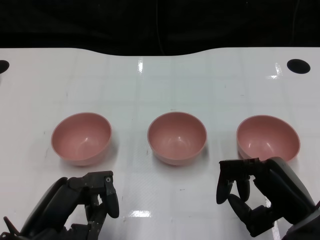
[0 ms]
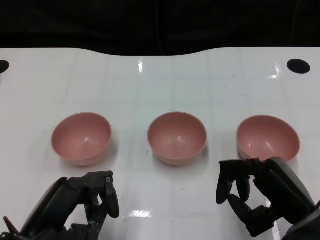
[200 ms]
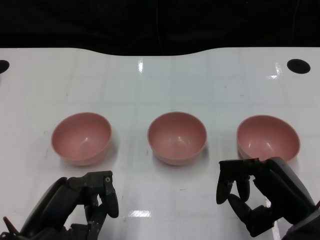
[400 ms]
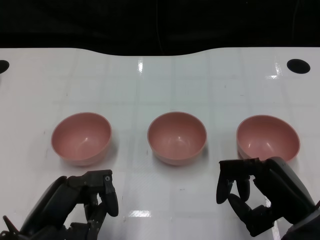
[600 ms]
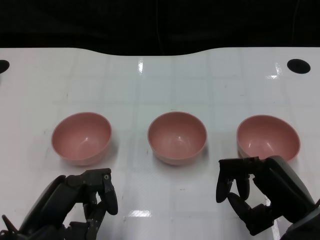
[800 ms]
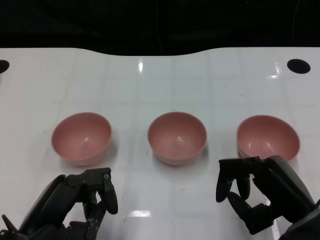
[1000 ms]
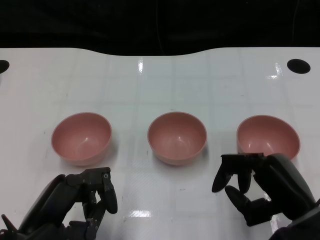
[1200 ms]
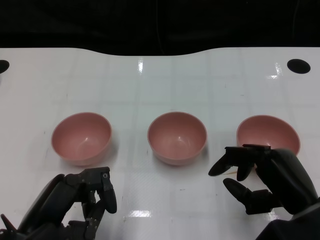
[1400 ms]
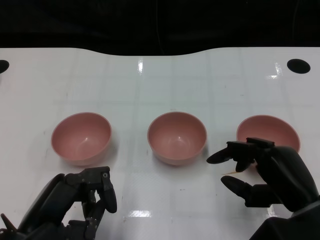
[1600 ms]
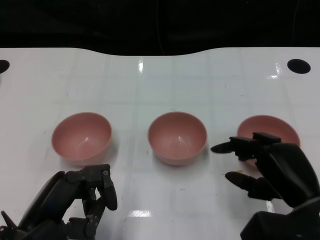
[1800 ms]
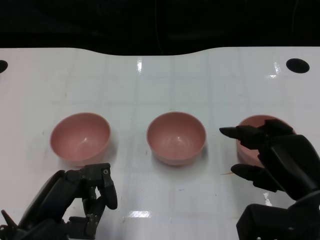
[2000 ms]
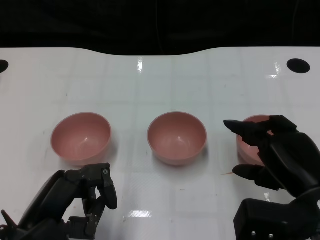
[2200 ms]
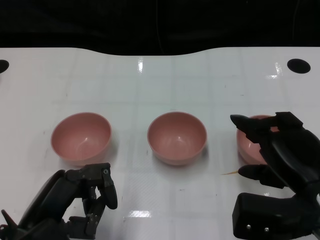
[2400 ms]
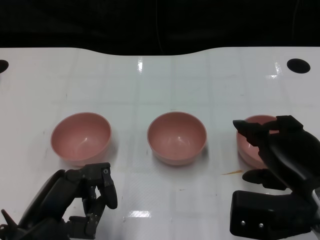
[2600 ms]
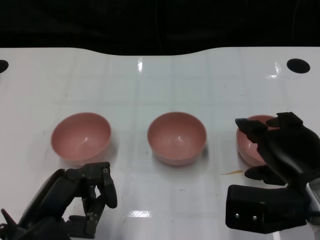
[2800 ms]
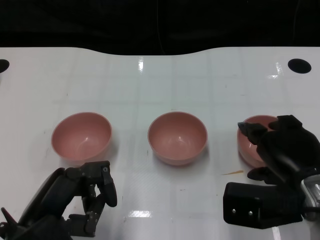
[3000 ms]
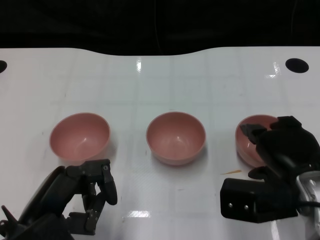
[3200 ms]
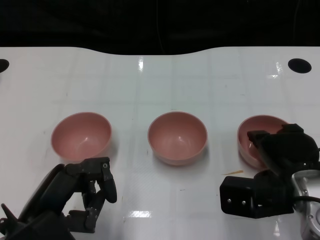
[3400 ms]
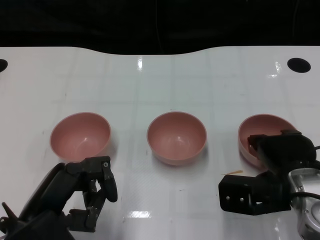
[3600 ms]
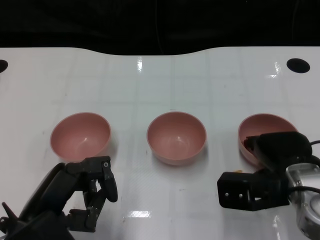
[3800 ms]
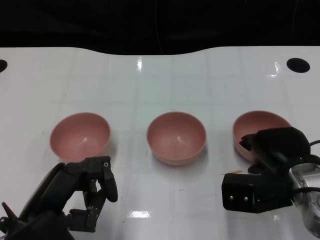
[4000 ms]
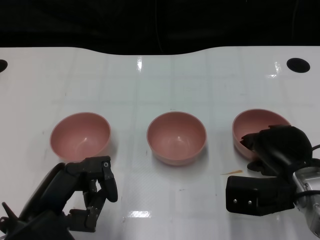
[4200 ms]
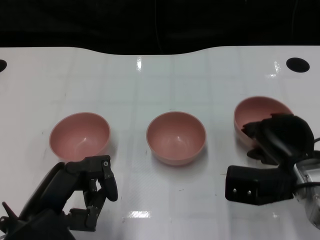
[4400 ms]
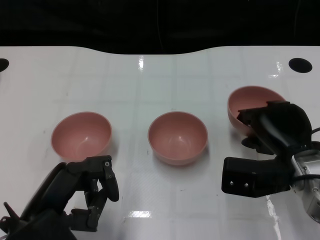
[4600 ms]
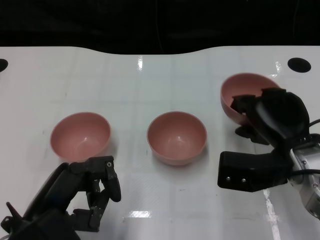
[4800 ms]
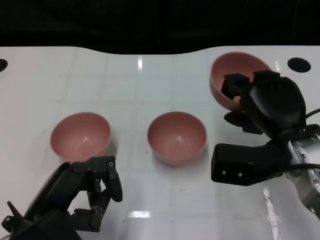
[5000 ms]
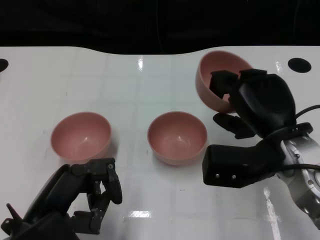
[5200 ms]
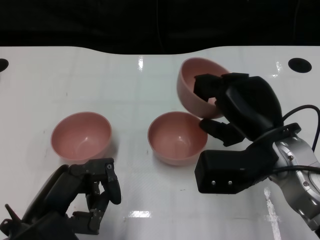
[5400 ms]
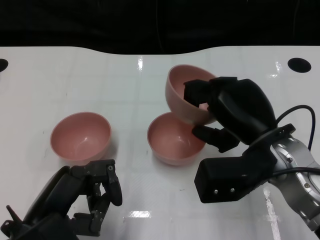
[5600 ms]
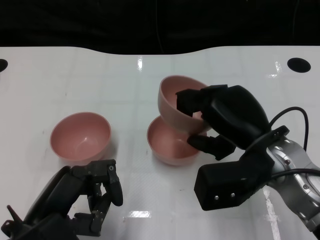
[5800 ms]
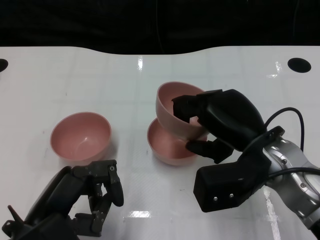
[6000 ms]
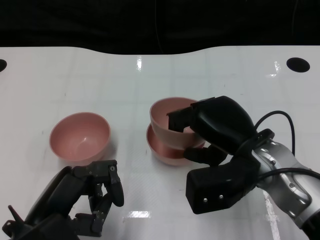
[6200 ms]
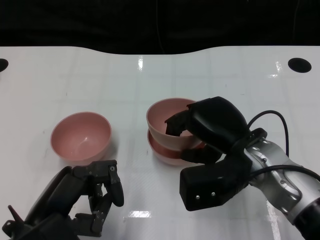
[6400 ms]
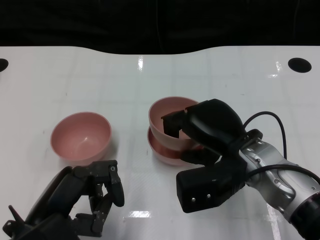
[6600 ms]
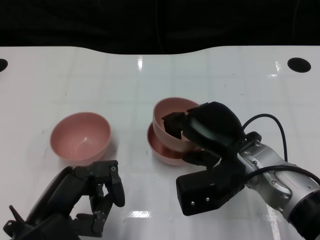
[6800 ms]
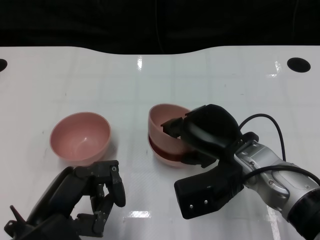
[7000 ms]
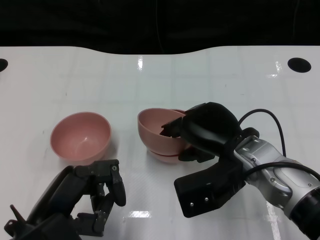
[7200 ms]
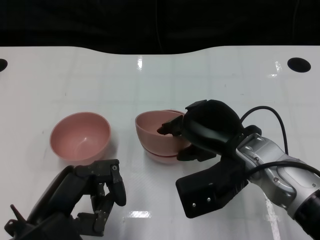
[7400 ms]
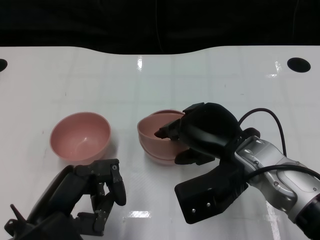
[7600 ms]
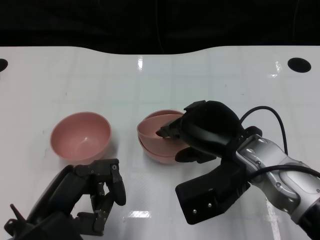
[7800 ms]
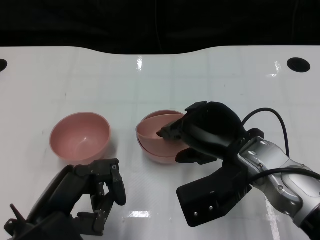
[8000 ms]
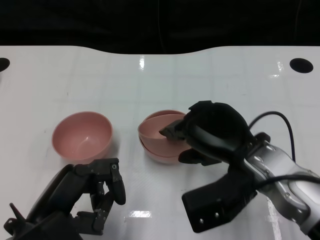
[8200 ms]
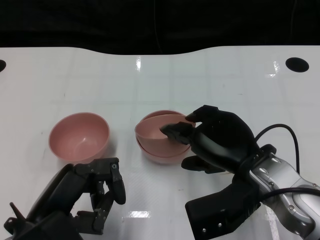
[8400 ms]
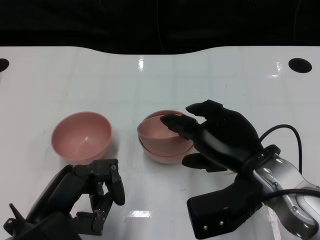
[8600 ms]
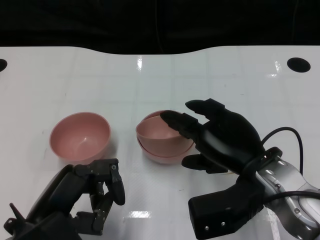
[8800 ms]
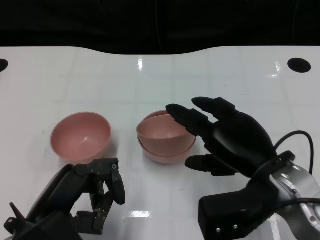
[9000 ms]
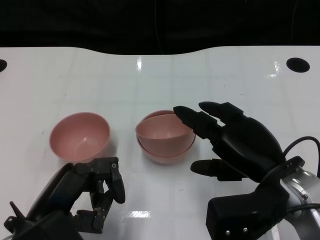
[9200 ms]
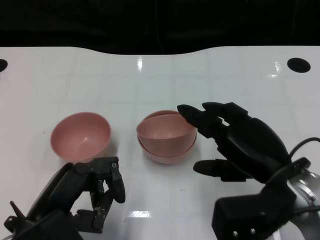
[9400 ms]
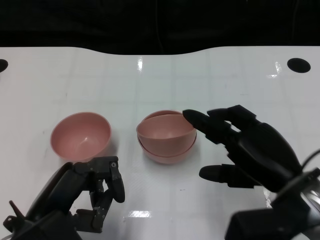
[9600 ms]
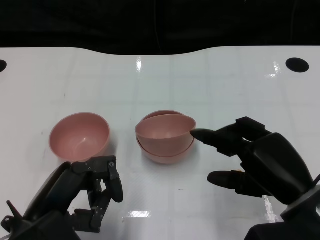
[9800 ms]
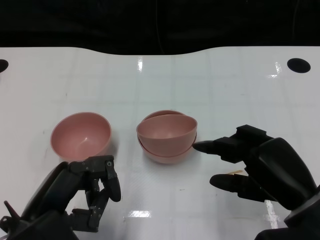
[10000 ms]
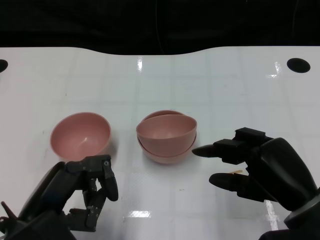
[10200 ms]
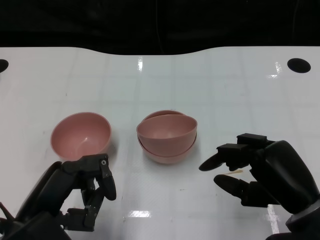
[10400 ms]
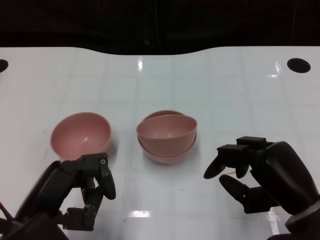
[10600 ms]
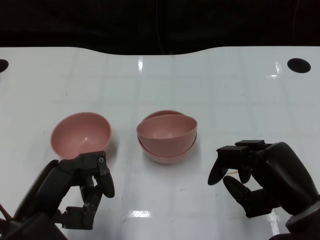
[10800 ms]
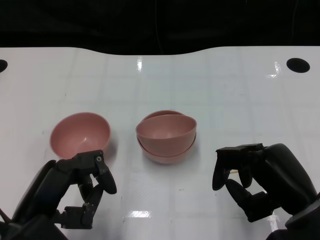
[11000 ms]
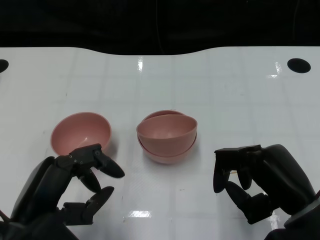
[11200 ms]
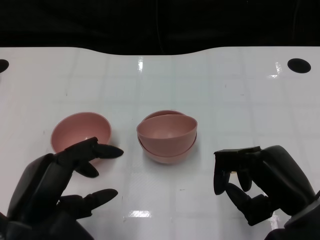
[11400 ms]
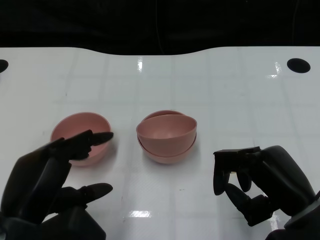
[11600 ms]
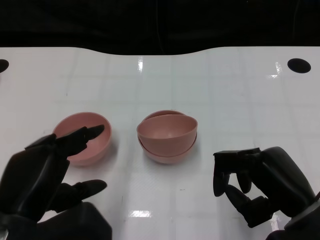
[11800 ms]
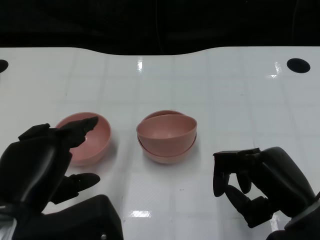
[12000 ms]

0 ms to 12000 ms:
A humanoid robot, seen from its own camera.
Task of the whole recording: Pick up the bowl on one side of the table and place it on top of the middle bowl, then pick up the bowl on the other side of the table and place it on top of the middle bowls.
Step, 1200 ms to 4200 ms: Grasp the bowl on the right with the right gripper.
Step, 4400 ms to 8800 ms: Place the bowl on the right onto the bowl in the middle with right gripper.
3000 ms to 4400 ms: The right hand shifts by approximately 5 cm.
4400 ms to 6000 ms: The right hand goes some 10 cm upward and to the left.
7600 ms to 9000 ms: The right hand changes place by approximately 5 cm.
9000 ms to 10400 ms: The right hand ends up some 5 cm from where it was.
10400 ms to 12000 ms: The left hand heads upward, covering about 5 cm.

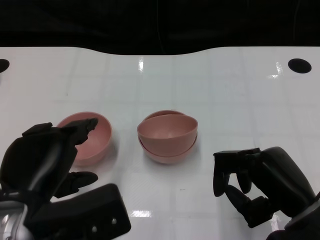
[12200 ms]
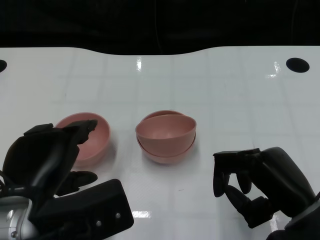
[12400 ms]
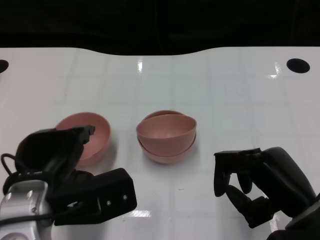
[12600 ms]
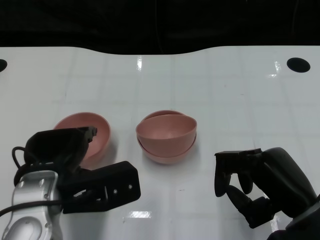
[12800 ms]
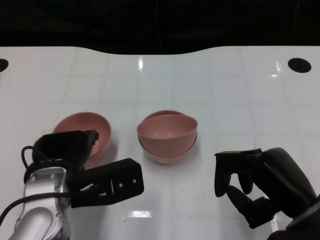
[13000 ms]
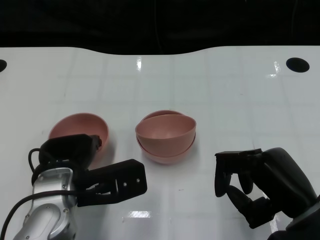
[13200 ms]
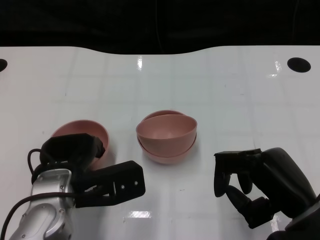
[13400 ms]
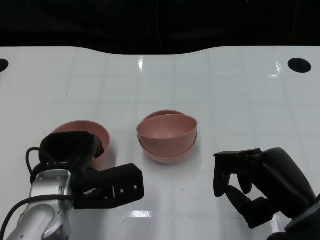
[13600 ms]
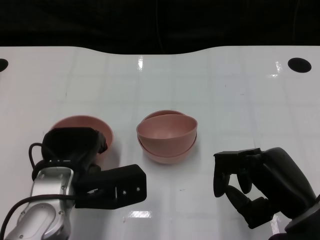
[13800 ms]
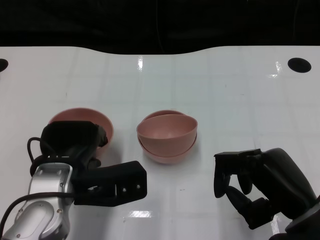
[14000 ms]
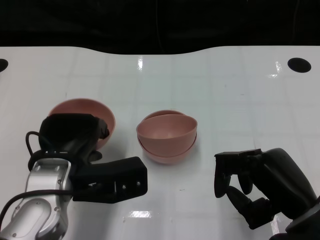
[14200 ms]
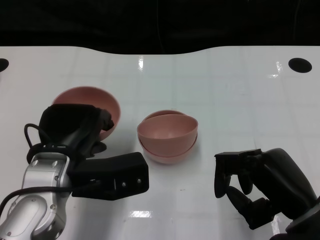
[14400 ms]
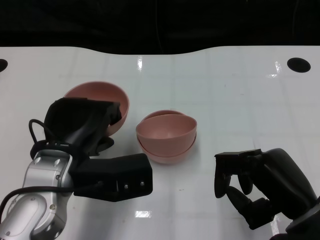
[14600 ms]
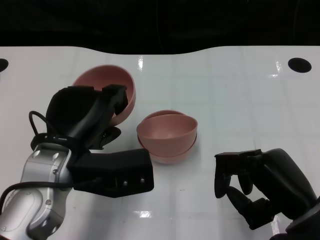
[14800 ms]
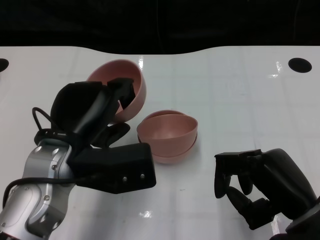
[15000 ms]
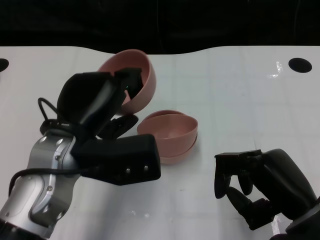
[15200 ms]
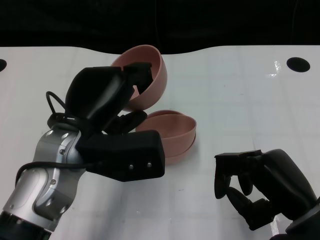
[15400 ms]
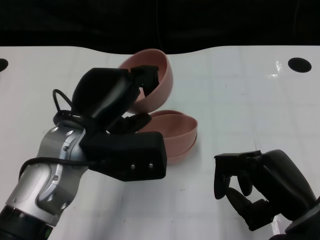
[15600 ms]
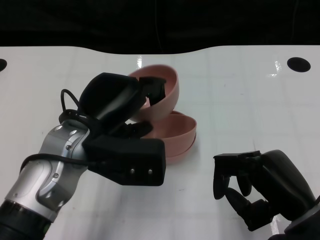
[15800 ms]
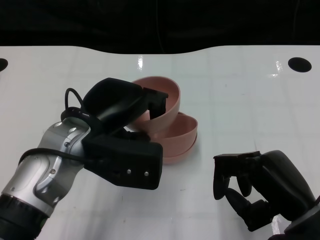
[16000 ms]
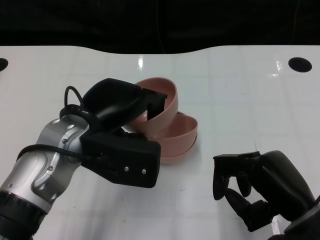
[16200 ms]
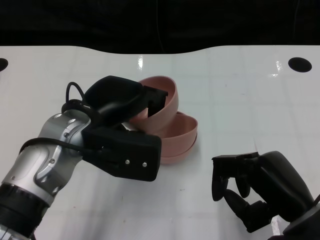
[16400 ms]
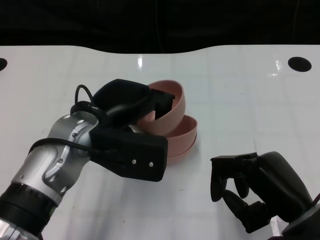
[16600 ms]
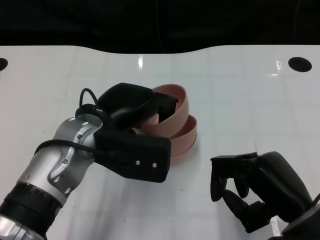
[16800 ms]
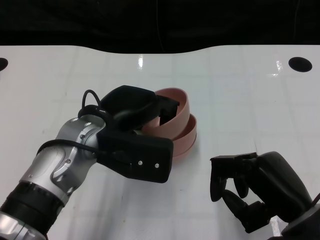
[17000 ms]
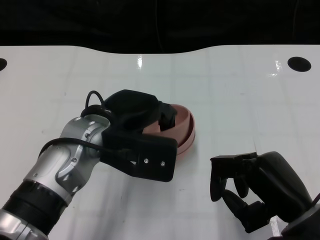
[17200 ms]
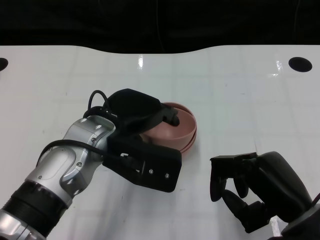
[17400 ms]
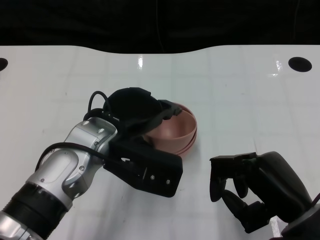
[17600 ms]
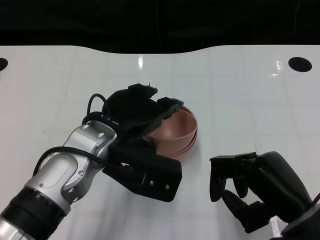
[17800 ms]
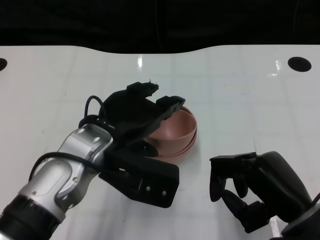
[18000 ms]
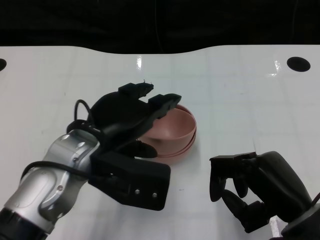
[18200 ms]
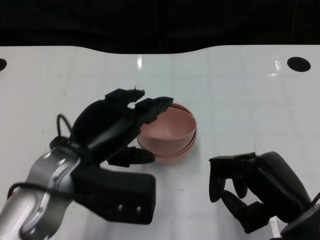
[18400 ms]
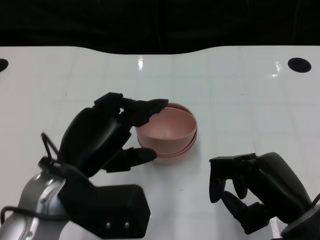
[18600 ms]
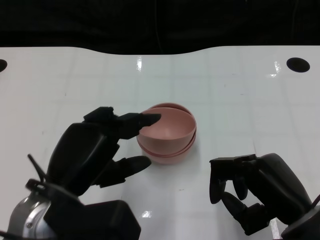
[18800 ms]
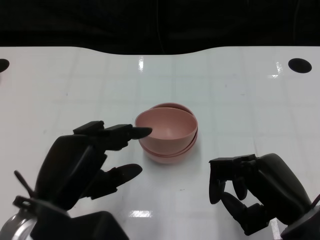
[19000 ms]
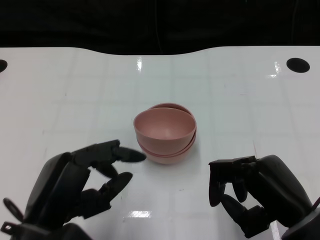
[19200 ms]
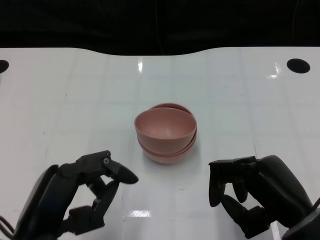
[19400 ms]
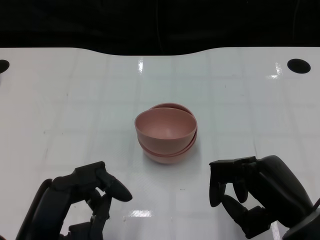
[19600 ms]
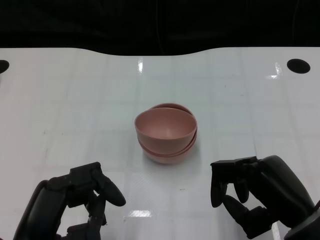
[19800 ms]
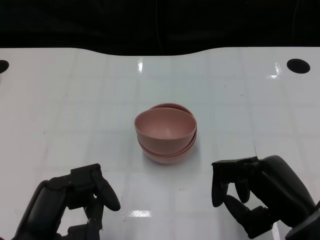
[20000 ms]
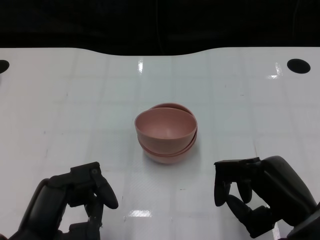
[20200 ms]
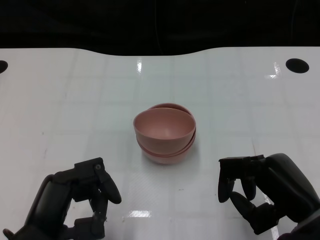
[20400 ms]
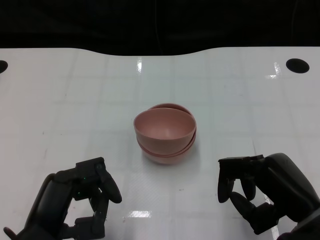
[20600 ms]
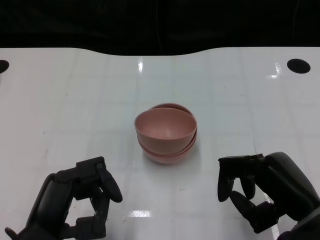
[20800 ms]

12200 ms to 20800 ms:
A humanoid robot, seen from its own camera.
Task of the whole recording: Pick up the bowl on one side of the table and place it on top of the middle bowl, then pick up the bowl on the other side of the table and place it on top of the middle bowls.
Step, 14000 ms to 18600 ms: Place the bowl on the left onto the bowl in the middle with left gripper.
12200 ms to 13600 ms: The left hand shifts approximately 10 cm forward and downward.
13600 ms to 15000 ms: The left hand travels upward by roughly 5 cm.
16600 ms to 18000 ms: The hands stay close to where they were, moving slightly.
18000 ms to 19400 ms: The left hand shifts about 15 cm backward and to the left.
19400 ms to 20800 ms: The hands make only small movements.

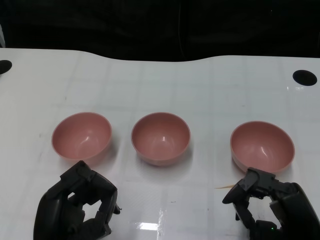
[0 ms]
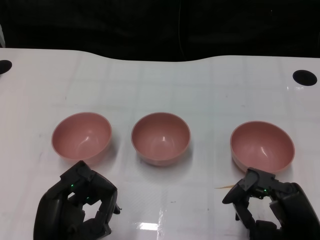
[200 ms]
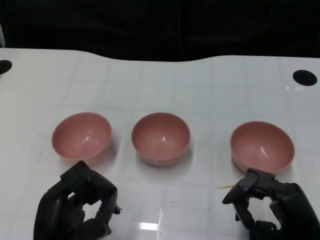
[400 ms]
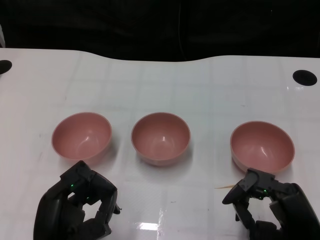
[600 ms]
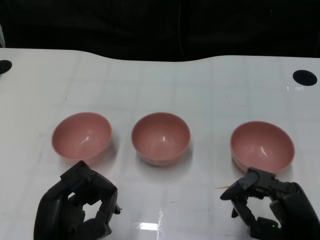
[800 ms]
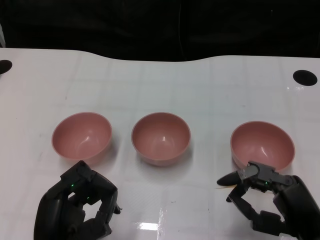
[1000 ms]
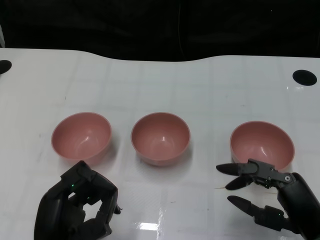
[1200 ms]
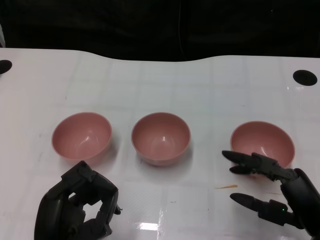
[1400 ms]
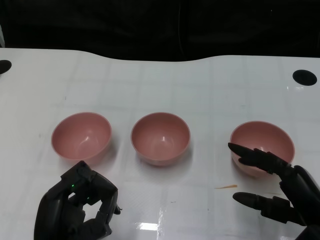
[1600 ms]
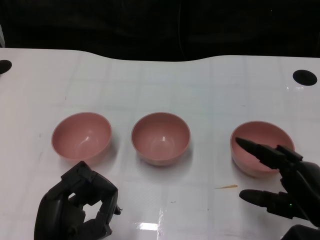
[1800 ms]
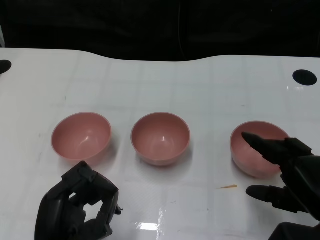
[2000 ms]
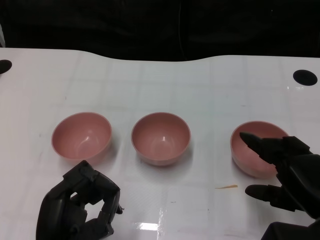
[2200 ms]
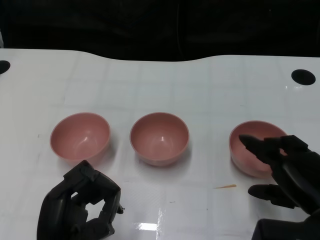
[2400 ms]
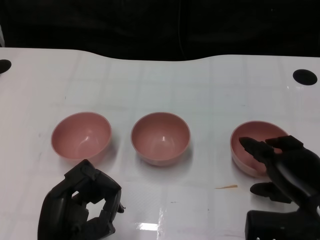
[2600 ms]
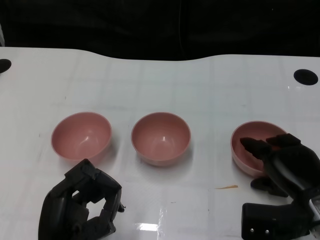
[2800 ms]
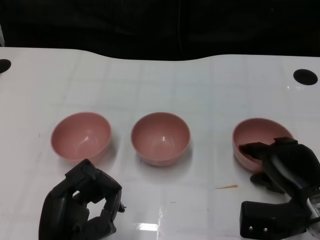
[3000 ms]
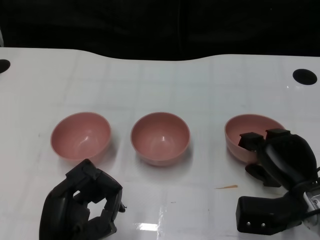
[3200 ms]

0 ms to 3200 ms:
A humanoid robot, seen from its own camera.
Task of the whole recording: Pick up the bowl on one side of the table and place it on top of the middle bowl, then pick up the bowl on the other side of the table and place it on top of the middle bowls.
1600 ms to 3200 ms: The right hand travels forward by some 5 cm.
